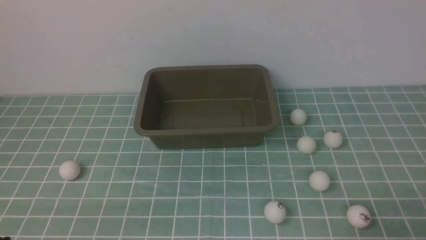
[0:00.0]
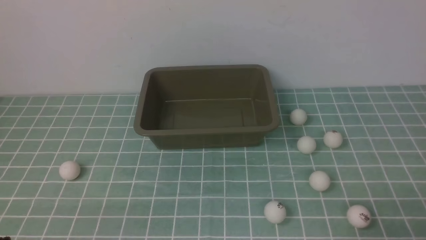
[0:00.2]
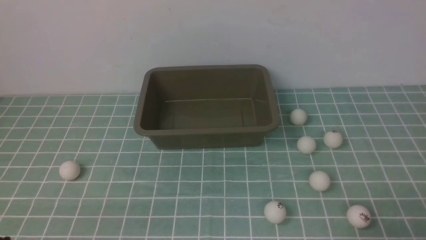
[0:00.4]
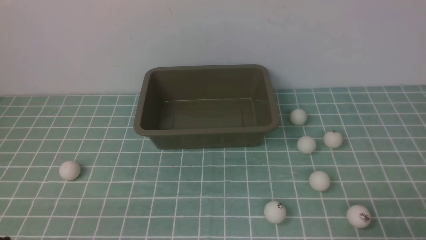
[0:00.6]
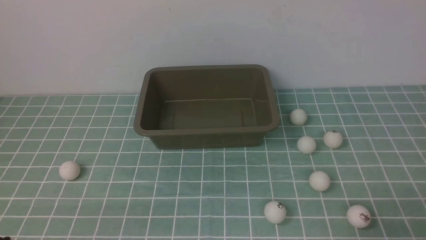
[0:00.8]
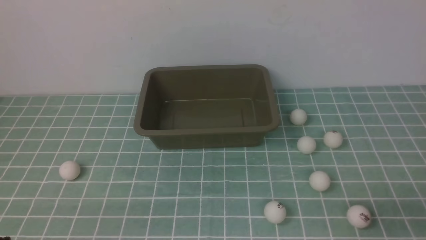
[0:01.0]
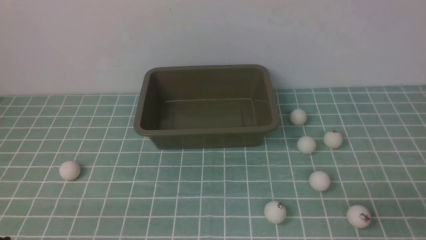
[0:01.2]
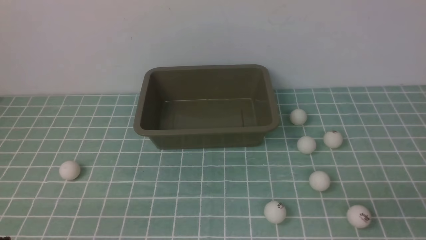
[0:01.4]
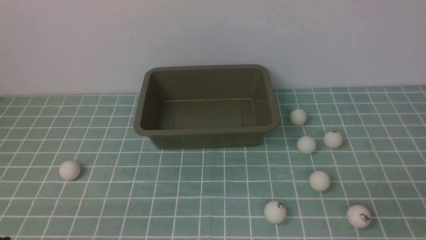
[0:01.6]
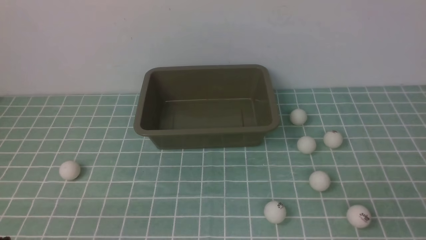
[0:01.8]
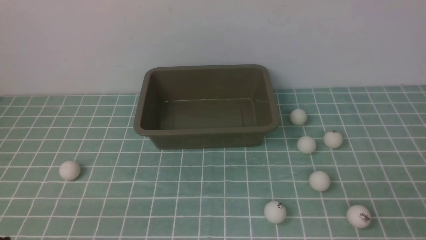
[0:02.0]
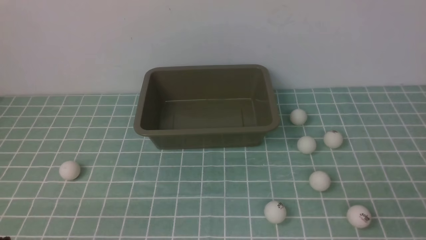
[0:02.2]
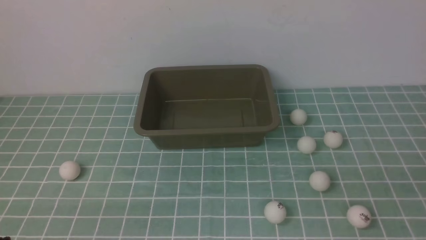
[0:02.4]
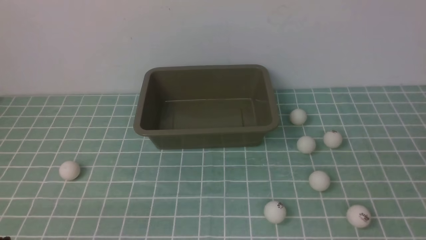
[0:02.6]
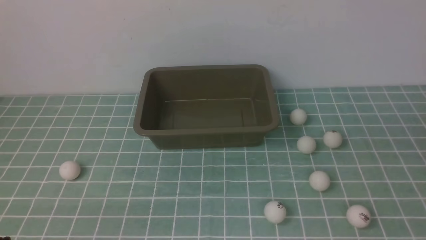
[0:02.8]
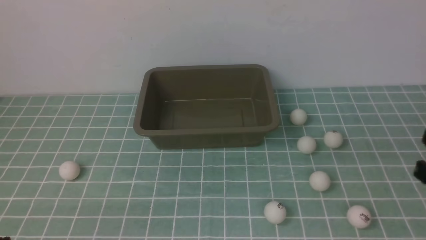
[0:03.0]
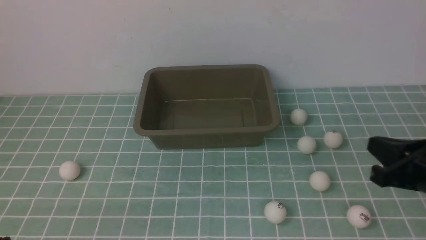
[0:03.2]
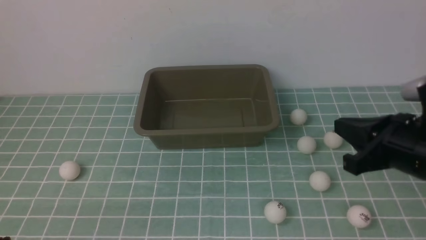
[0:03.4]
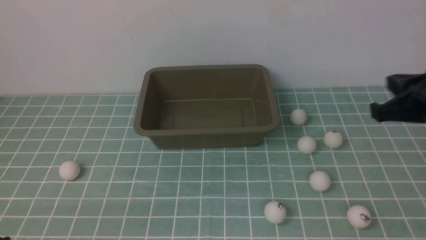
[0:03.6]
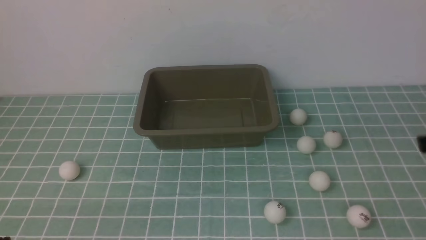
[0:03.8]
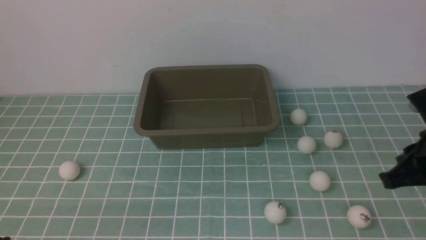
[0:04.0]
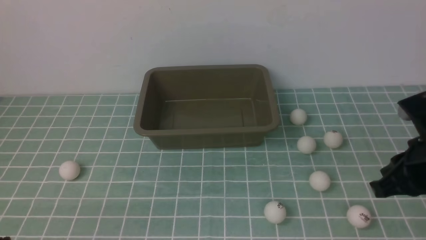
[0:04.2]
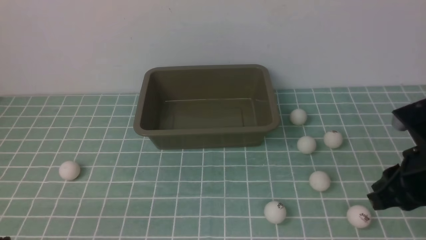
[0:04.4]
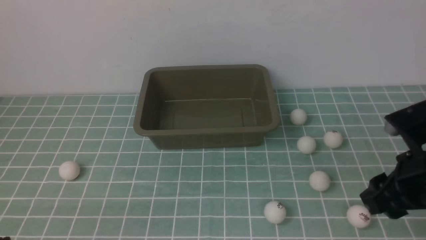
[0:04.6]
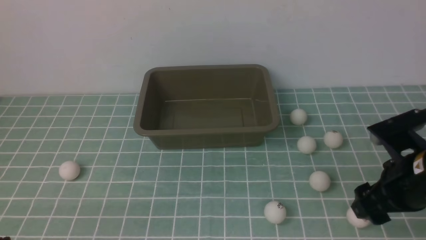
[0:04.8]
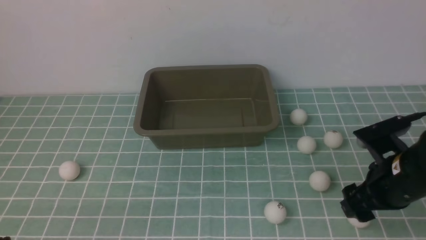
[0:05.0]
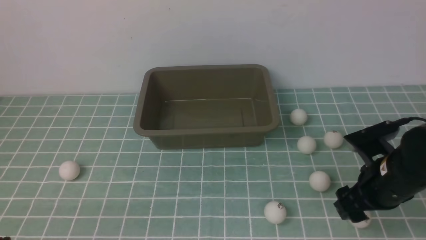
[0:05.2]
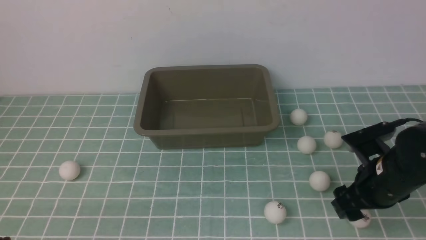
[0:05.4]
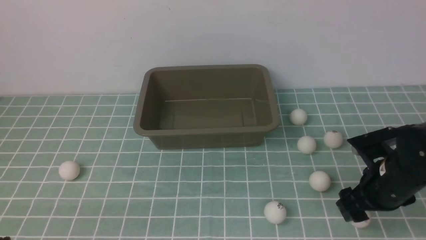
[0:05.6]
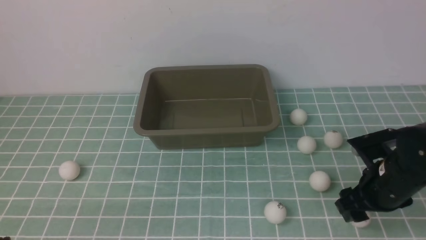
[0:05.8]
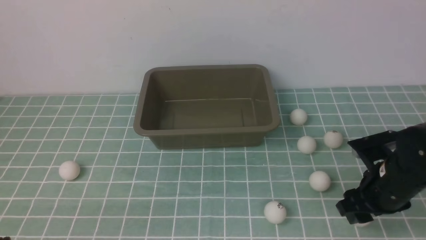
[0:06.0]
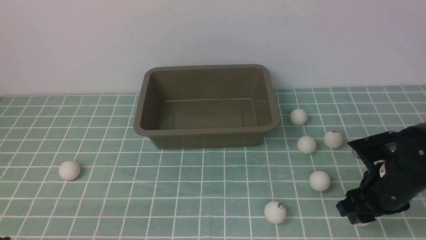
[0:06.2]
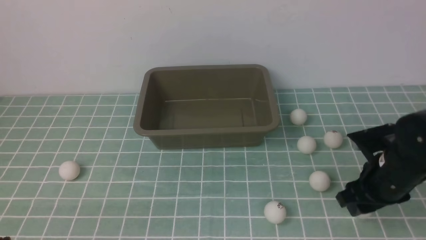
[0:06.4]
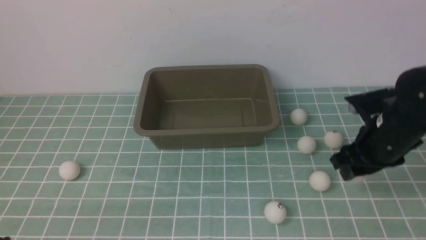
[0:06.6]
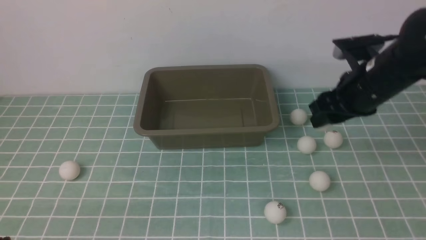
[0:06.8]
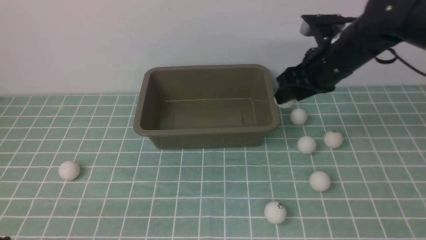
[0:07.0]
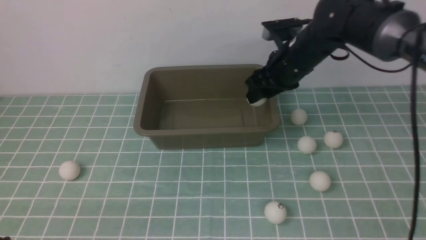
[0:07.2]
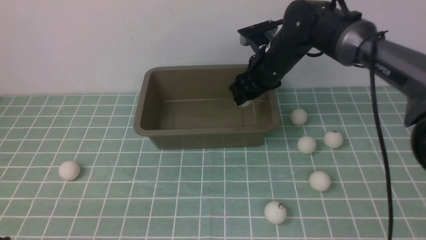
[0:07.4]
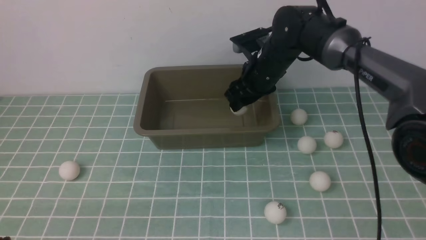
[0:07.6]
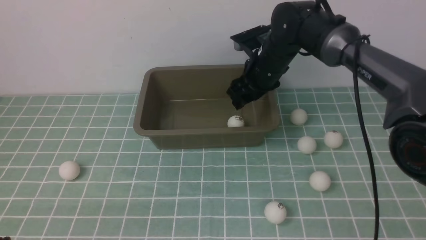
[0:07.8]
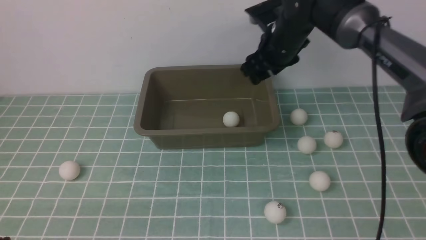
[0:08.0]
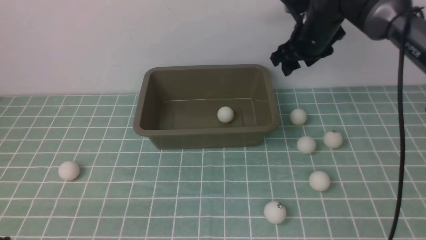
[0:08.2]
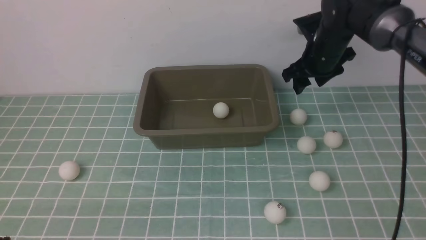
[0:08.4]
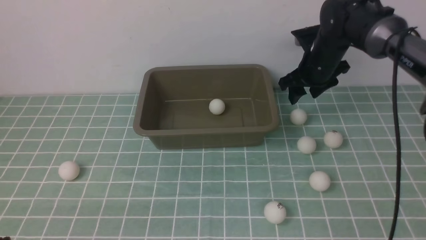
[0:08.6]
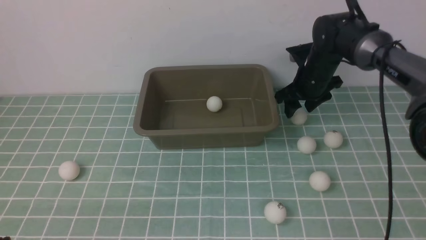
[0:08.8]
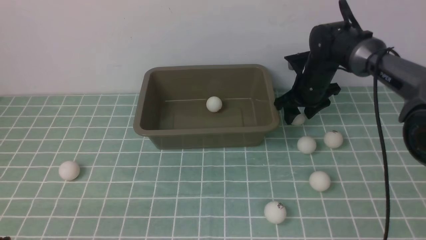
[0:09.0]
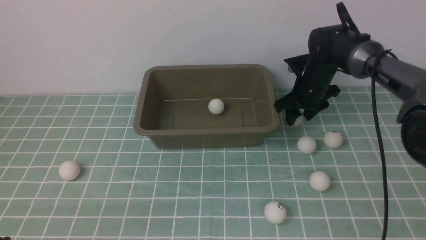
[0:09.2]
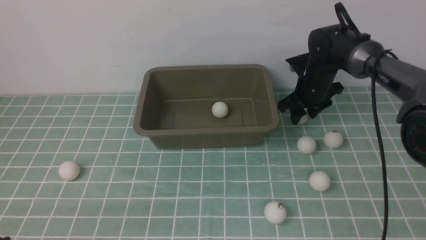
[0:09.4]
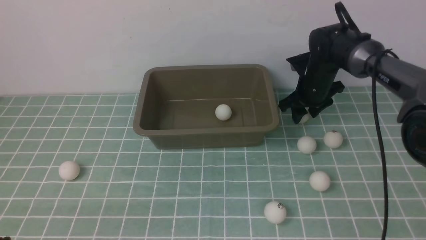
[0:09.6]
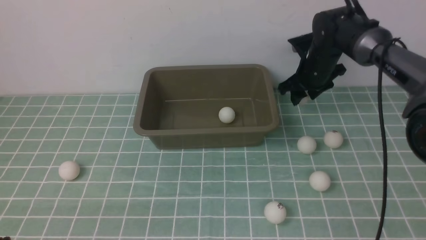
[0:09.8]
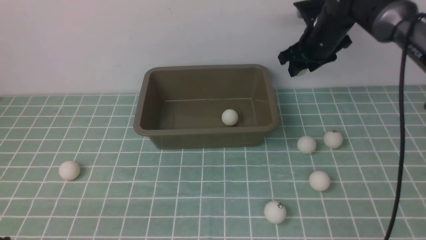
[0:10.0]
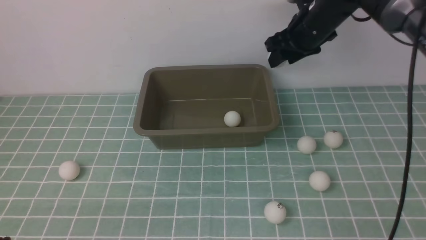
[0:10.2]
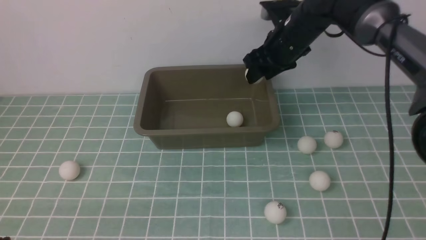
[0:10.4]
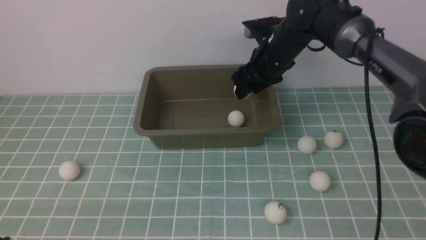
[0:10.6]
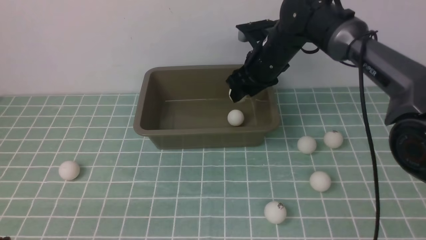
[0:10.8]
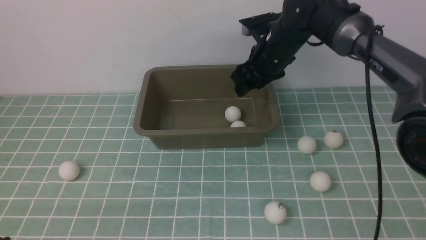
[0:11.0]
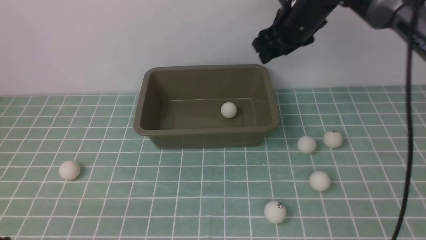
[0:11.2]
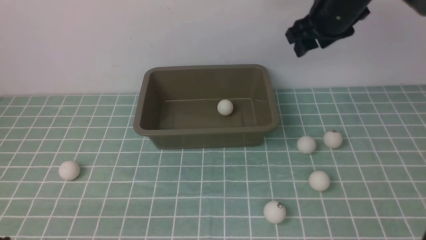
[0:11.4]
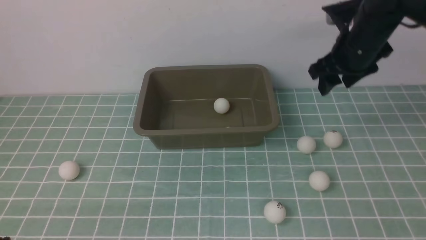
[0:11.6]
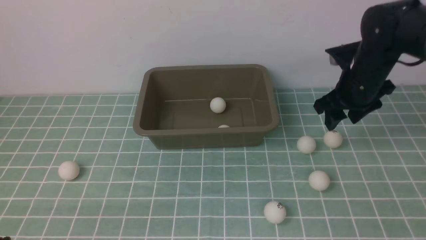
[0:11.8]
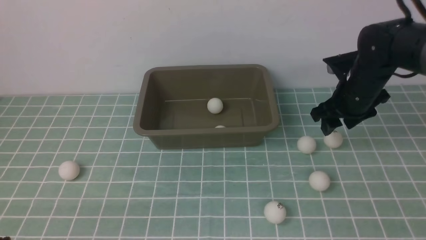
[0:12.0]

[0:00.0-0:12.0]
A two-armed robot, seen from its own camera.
Step, 0:00.0 to 0:06.4: use the right arm to clamp the table tennis ball closest to it.
Step, 0:06.6 to 0:08.0: use the right arm to put the table tennis ball into the box.
Step, 0:08.2 to 0:09.8: use the right arm to clamp the table tennis ball closest to it.
Step, 0:10.0 to 0:11.0: use the right arm to put the table tennis ball into the box.
0:03.0 to 0:04.4: The right gripper opens its fingers.
0:04.4 to 0:06.0: The right gripper shifts some 5 cm downward.
0:06.0 to 0:07.6: The right gripper travels forward and to the left by about 25 cm.
0:07.6 to 0:09.0: The right gripper goes approximately 10 cm to the right and downward.
0:09.0 to 0:10.4: The right gripper shifts some 10 cm to the left and upward.
0:10.4 to 0:12.0: The right gripper goes about 15 cm to the right, backward and downward.

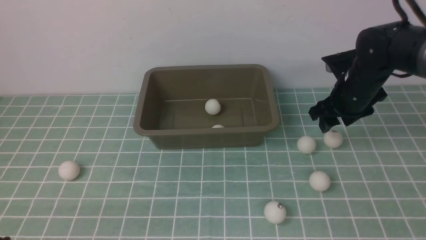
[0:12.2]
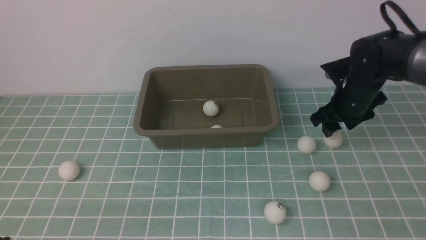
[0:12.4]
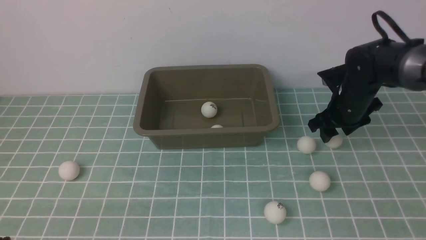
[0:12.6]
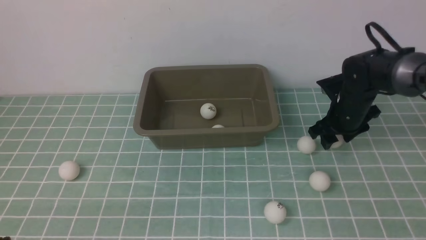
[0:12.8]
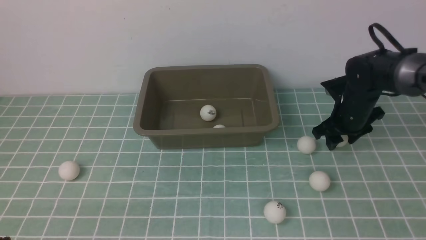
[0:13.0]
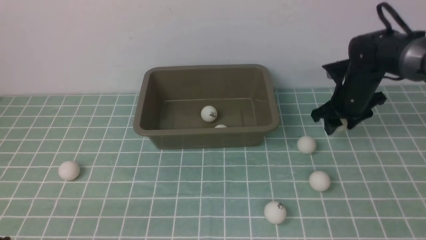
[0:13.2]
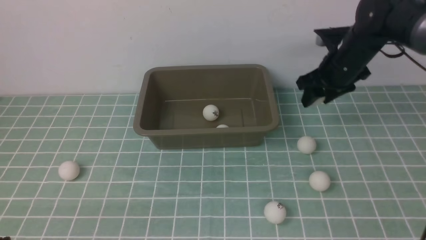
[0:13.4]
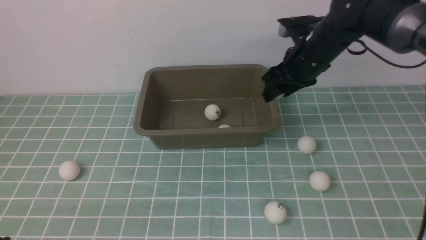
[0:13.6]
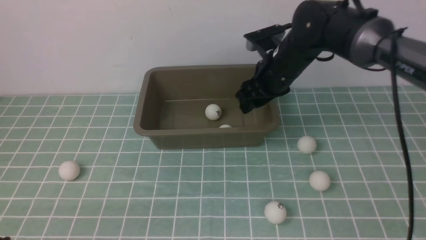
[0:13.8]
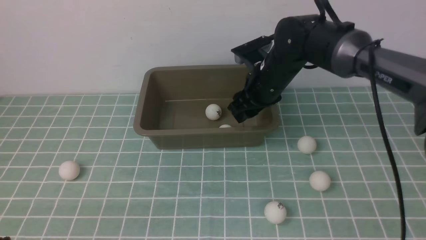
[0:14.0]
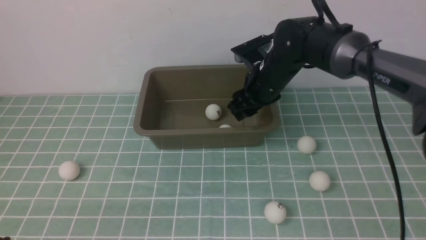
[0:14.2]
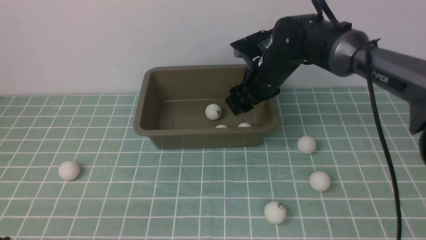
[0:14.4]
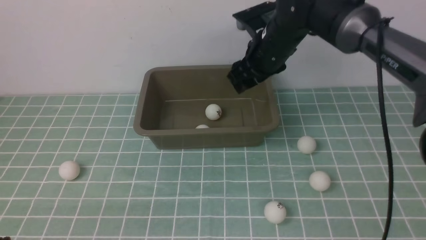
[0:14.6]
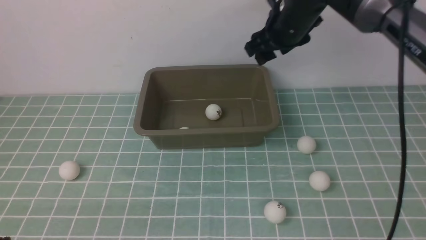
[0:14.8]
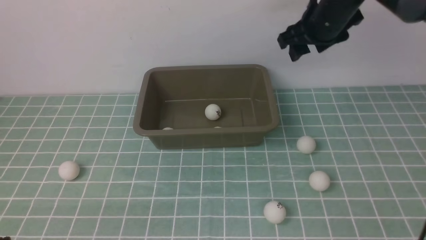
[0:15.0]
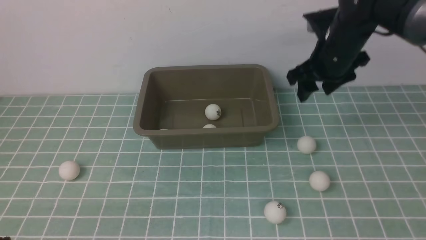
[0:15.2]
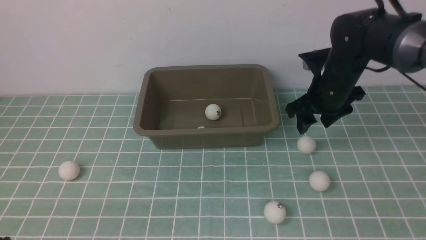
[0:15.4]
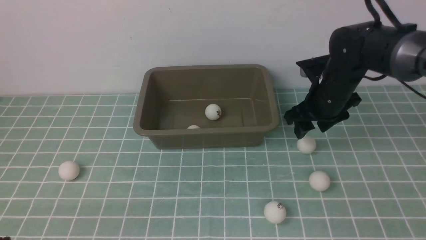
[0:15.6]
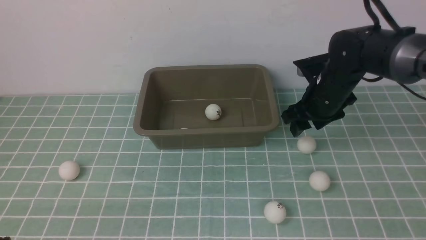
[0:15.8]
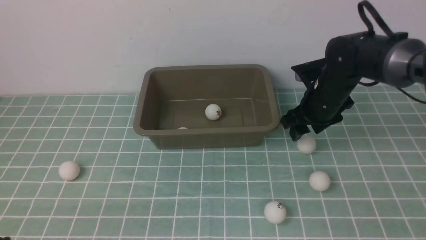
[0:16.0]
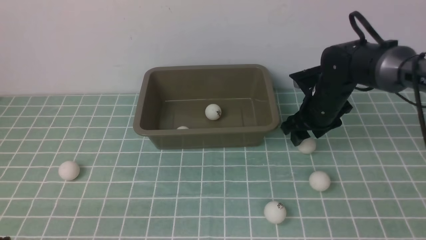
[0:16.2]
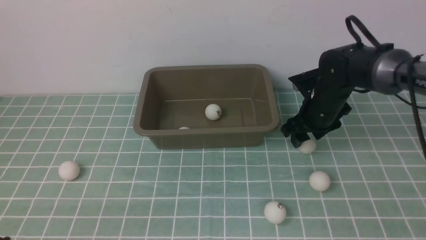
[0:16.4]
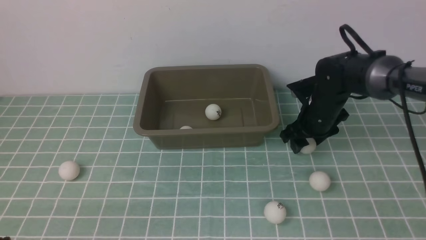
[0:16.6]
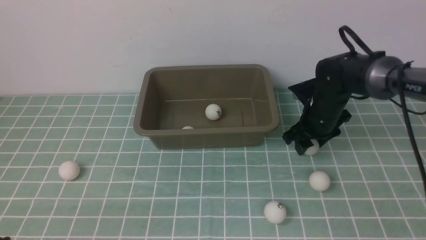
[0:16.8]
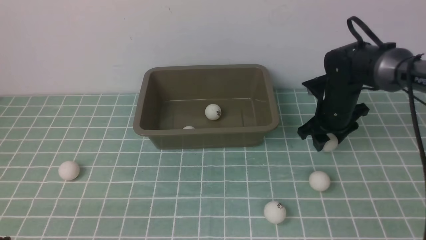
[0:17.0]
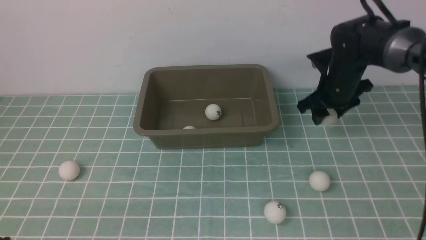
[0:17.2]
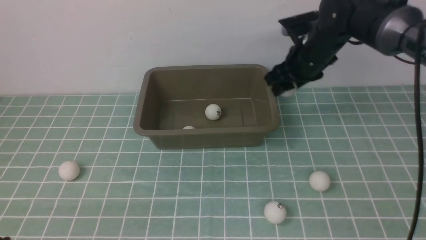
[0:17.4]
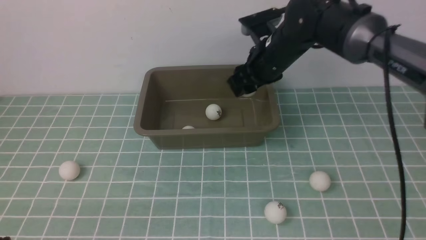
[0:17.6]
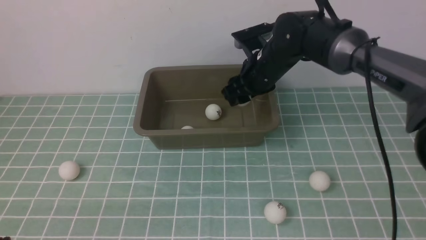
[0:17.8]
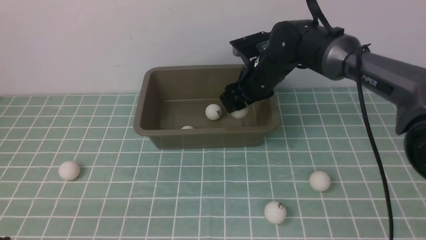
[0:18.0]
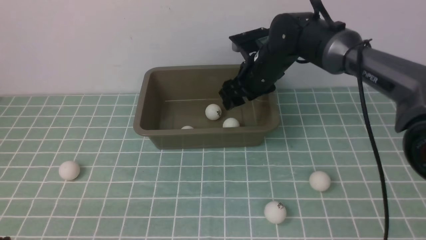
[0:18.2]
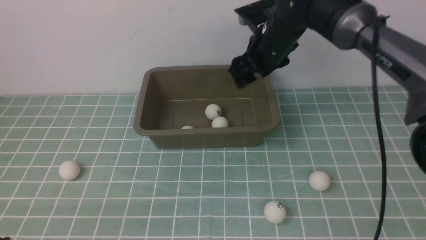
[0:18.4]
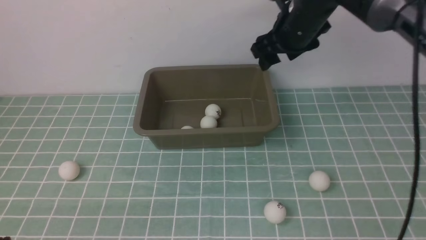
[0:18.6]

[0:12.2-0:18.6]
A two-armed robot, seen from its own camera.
Step, 0:12.2 to 0:13.2: use the right arm to clamp the table tennis ball closest to it.
Step, 0:13.4 to 0:14.6: use the right arm to put the table tennis ball into the box.
Step, 0:14.8 to 0:17.0: use the right arm to clamp the table tennis ball closest to it.
Step, 0:17.2 to 0:18.2: use the right arm to put the table tennis ball into the box.
0:12.2 to 0:13.8: The right gripper shifts about 15 cm to the left and upward.
0:13.8 to 0:15.4: The right gripper is displaced to the right by about 5 cm.
0:15.4 to 0:17.0: The right gripper moves some 5 cm.
0:17.0 to 0:18.6: The right gripper shifts roughly 10 cm upward, and reaches roughly 10 cm to the left, then returns.
